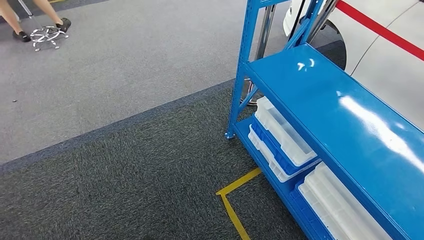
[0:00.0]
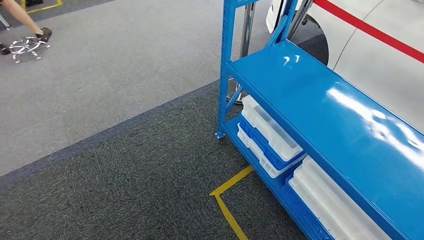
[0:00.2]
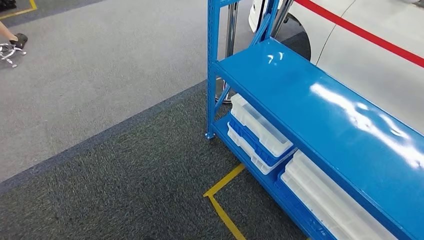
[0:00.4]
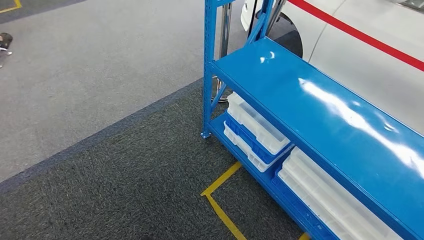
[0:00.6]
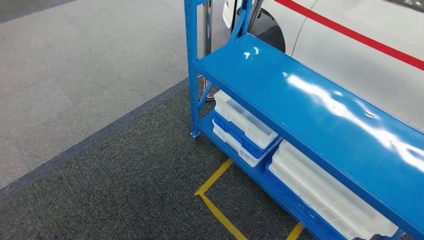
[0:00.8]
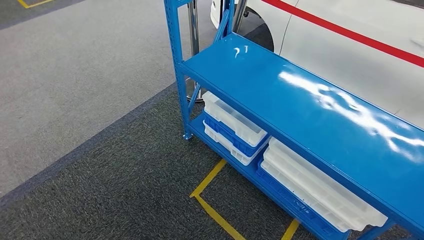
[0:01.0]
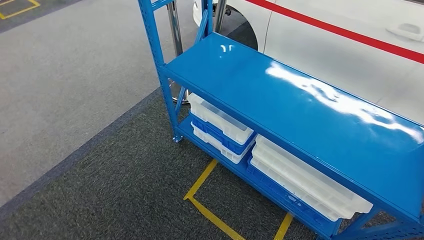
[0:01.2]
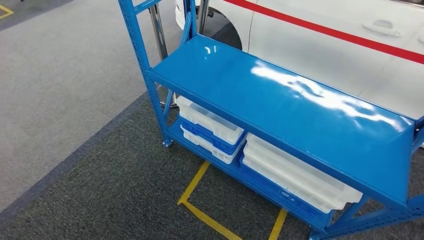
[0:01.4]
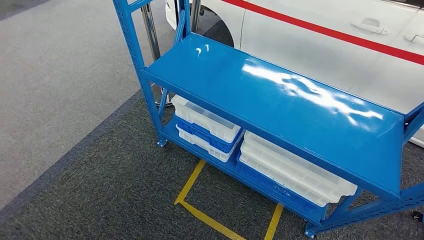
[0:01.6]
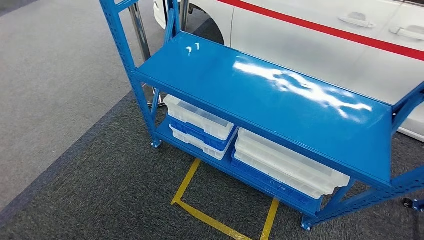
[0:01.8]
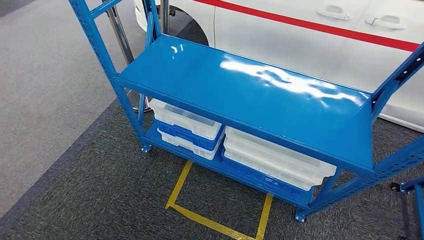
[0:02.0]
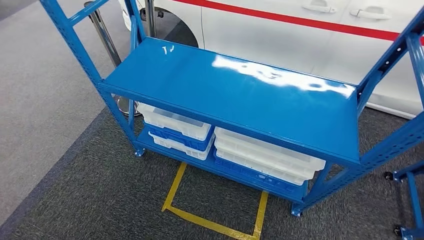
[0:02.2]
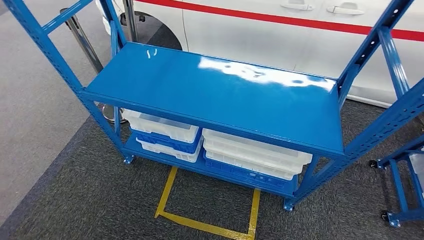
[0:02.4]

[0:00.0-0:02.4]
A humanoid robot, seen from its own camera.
Step, 0:00.0 to 0:02.4: Move to the initial position of the shelf.
